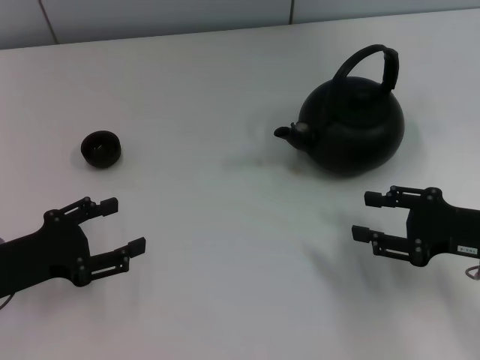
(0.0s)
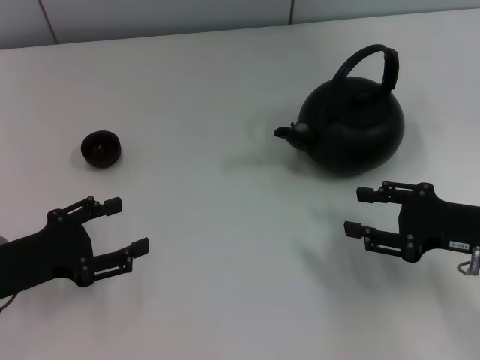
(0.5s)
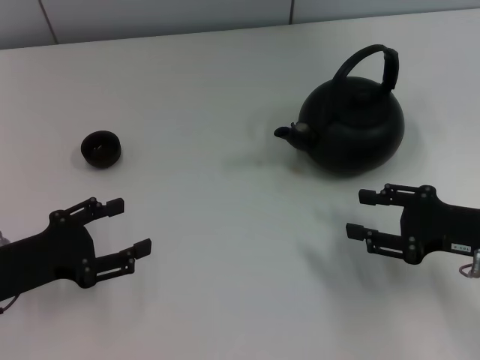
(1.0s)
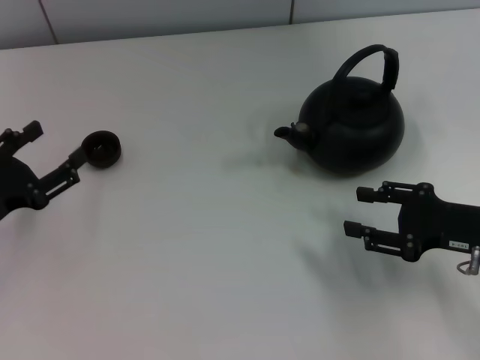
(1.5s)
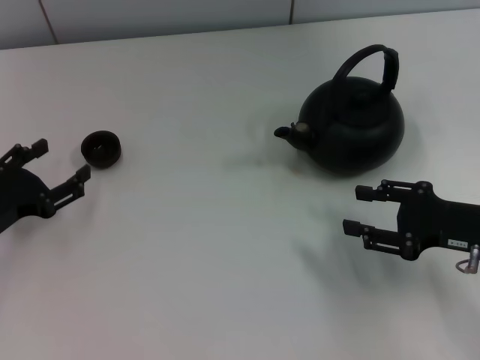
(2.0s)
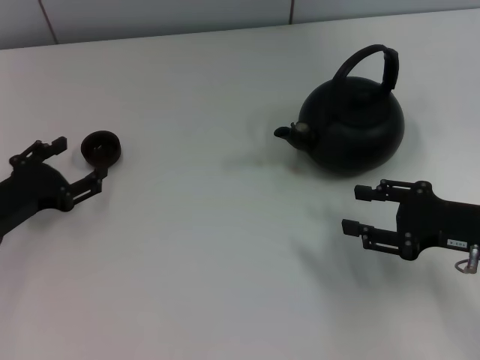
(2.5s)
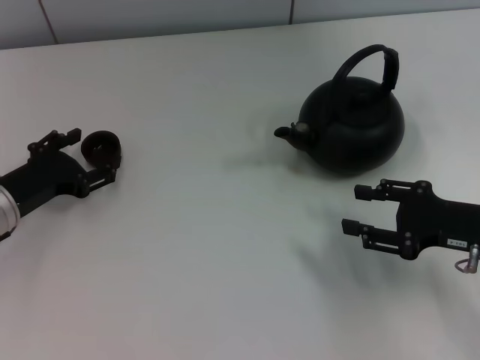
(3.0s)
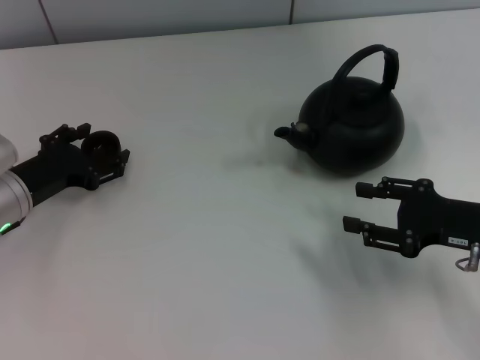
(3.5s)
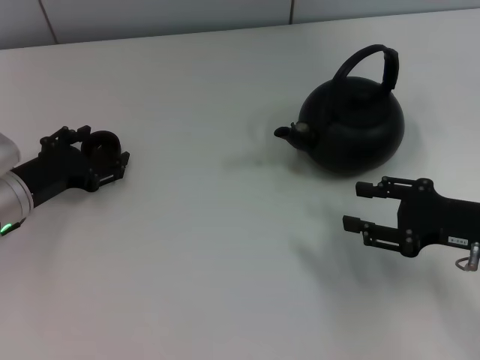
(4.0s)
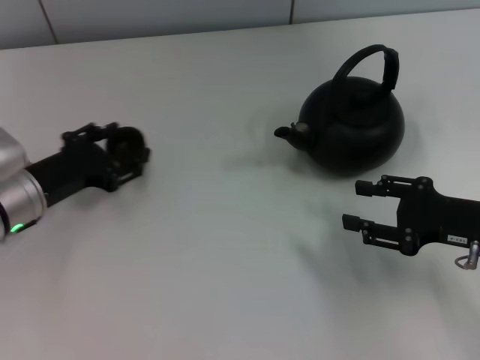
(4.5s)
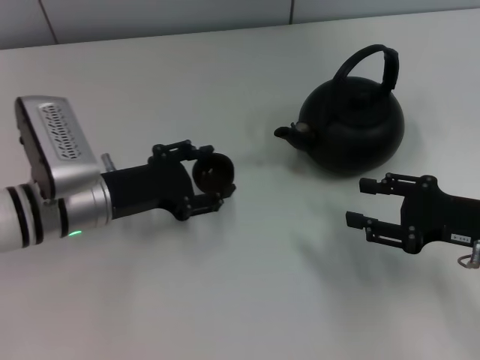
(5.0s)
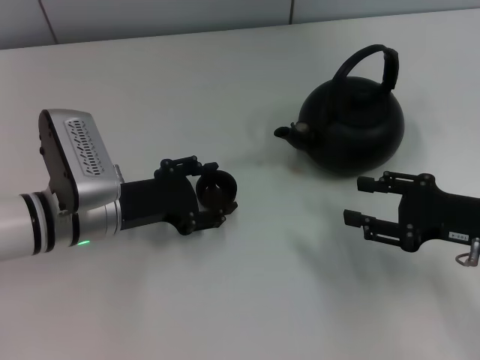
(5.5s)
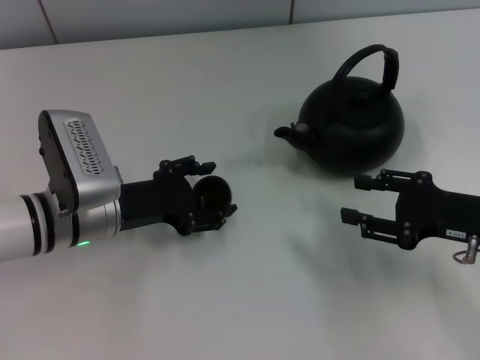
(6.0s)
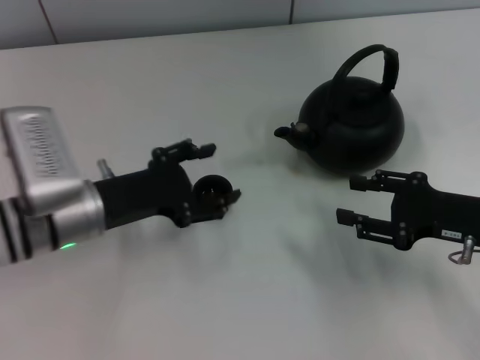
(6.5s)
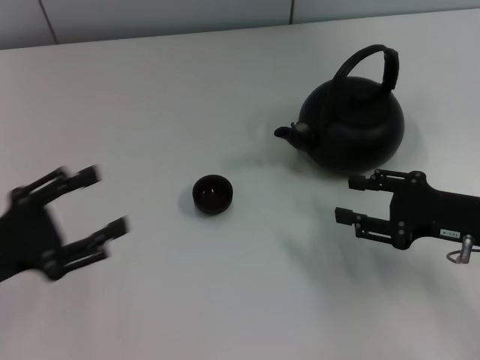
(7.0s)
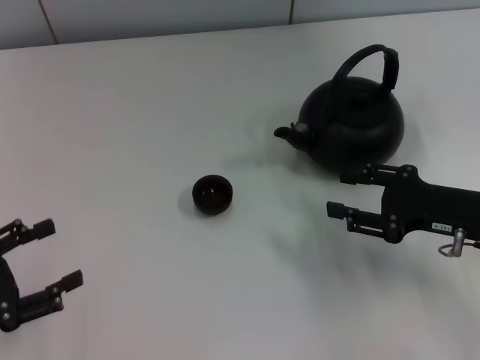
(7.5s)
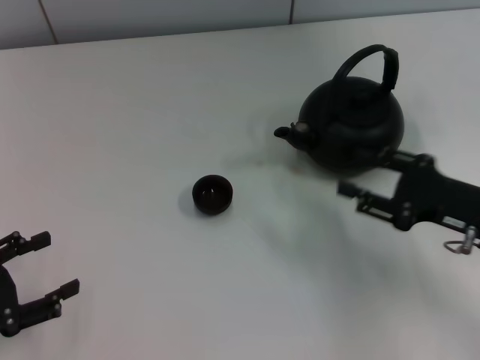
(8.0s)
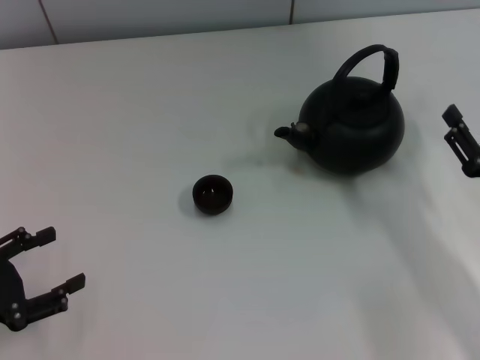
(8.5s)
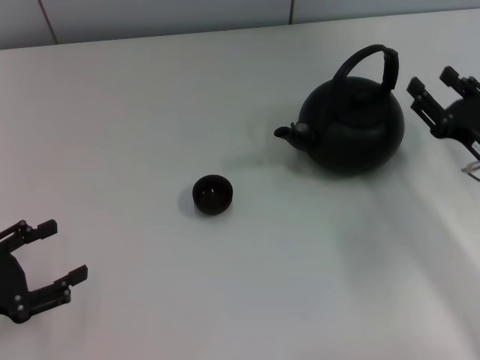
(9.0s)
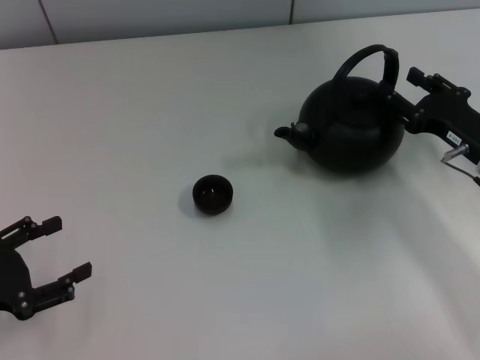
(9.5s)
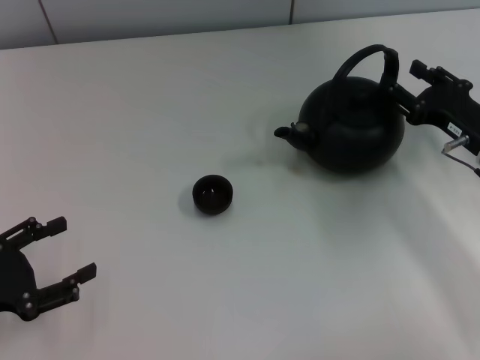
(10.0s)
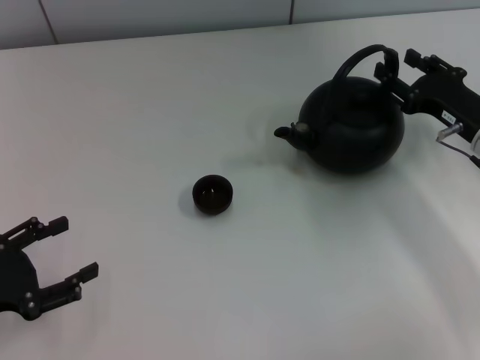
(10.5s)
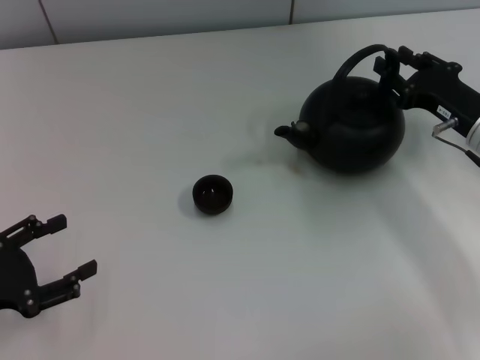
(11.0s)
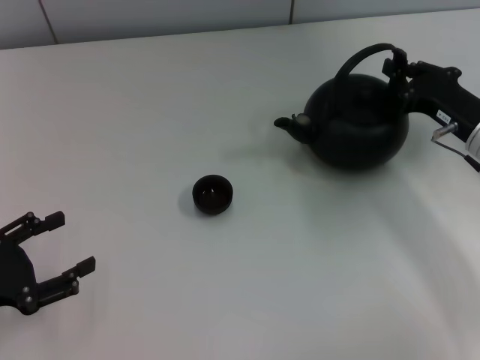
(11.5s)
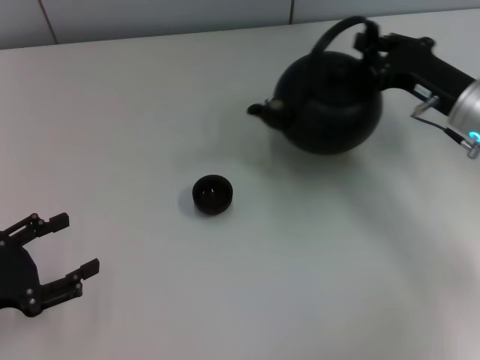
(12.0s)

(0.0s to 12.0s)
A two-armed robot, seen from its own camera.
Task of the whole recording: Grasp the handle of the teapot with one hand and pour tea into the teacup.
Step, 0.0s - 4.5s: Pick up the teacup with the left gripper.
Step, 5.0s - 7.0s: Place the teacup in the center of view with the left gripper.
Step, 7.5s - 12.0s: Pick up the teapot with the right gripper.
2.0s - 4.0s: The left gripper shifts approximately 5 cm forward, and closes up.
4.0s - 6.0s: The left gripper moves to the right, about 10 cm.
6.0s - 8.0s: The left gripper goes approximately 20 cm to the left and backward, and opens its fingers.
8.0s - 10.0s: The right gripper goes approximately 5 cm forward.
10.0s - 12.0s: The right gripper changes place by approximately 5 cm, and closes.

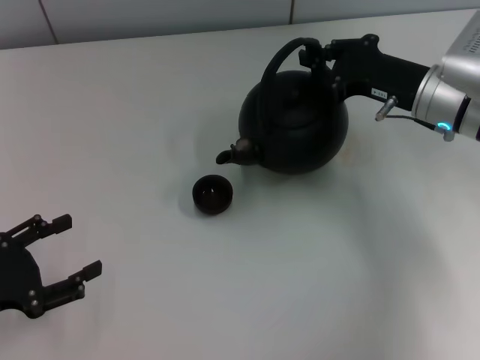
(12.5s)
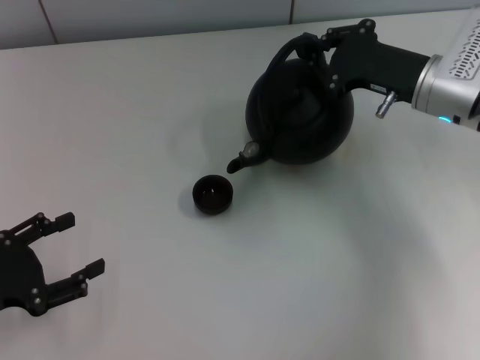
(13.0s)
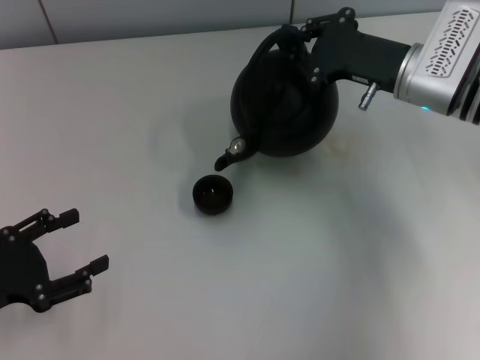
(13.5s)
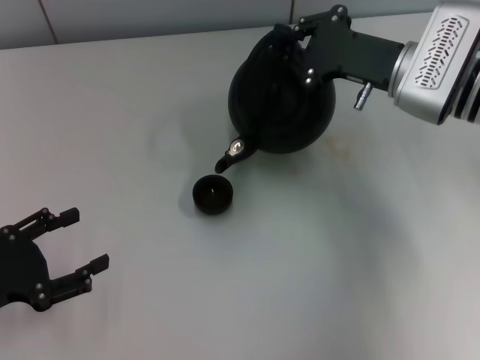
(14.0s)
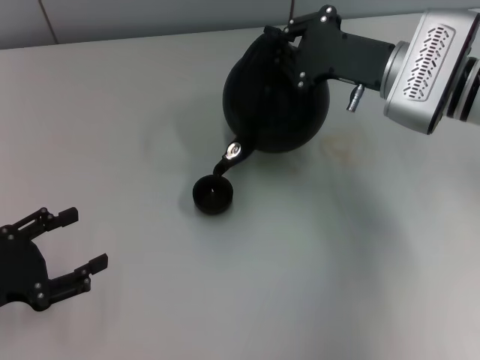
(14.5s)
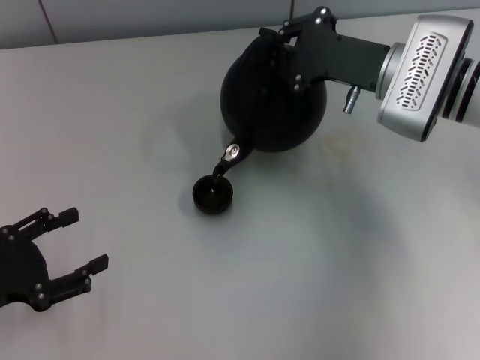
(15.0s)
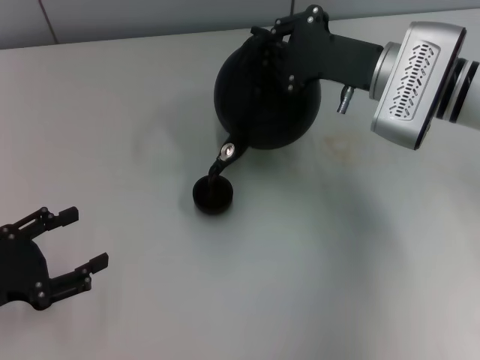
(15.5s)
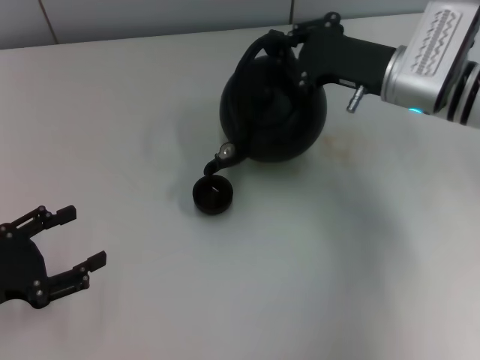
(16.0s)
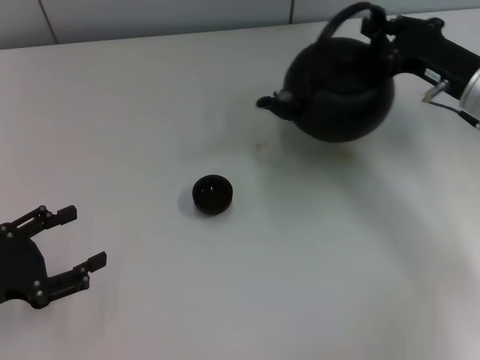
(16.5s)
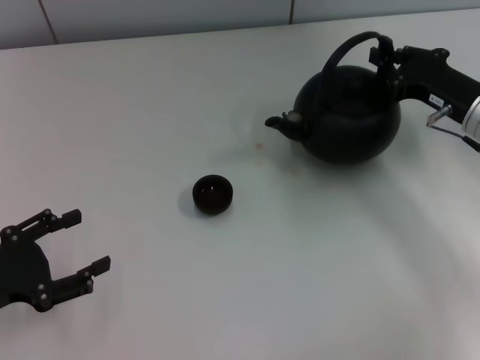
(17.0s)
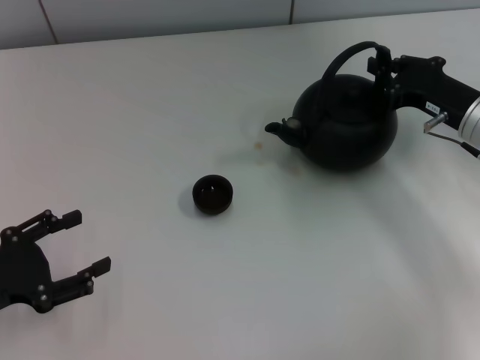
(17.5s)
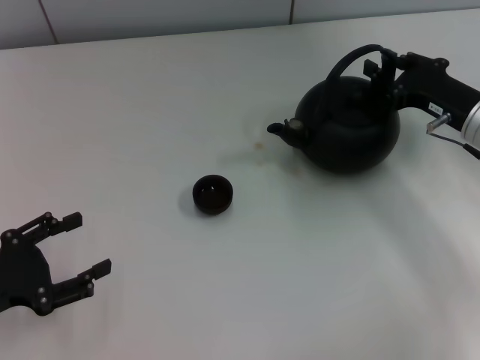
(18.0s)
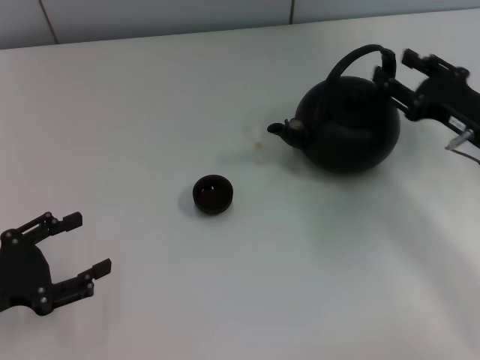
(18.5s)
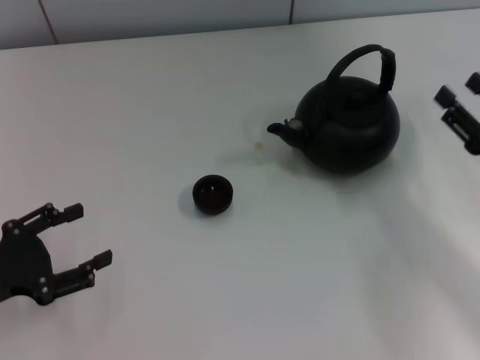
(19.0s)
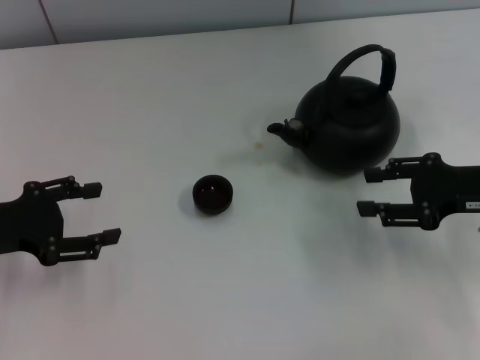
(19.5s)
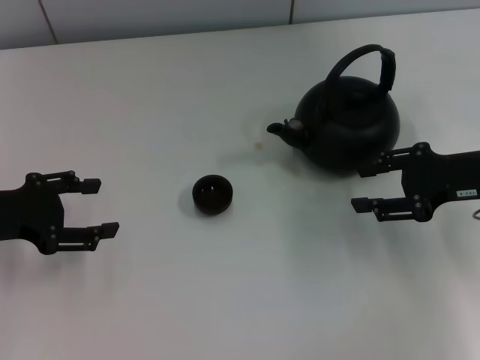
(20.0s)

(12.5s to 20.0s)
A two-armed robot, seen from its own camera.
Task of the whole recording: Grasp the handle of the teapot with one hand and pour tea into the teacup.
Step, 16.5s - 18.5s: Put down the teapot with the right gripper.
14.5s - 16.5s: The right gripper moves to the right, approximately 10 cm.
16.5s - 18.0s: The grippers make only small movements.
18.0s - 20.0s: The right gripper opens up. The left gripper moves forward, roughly 10 cm.

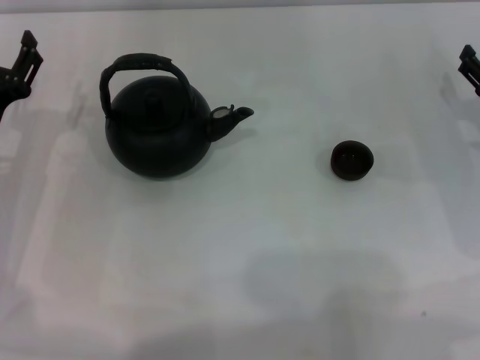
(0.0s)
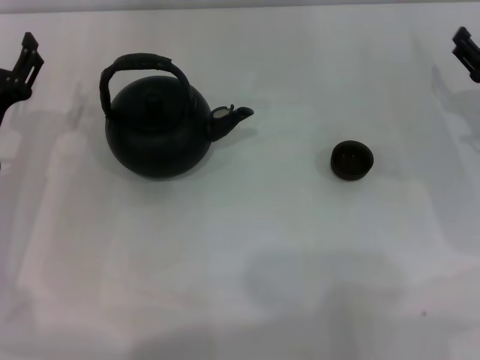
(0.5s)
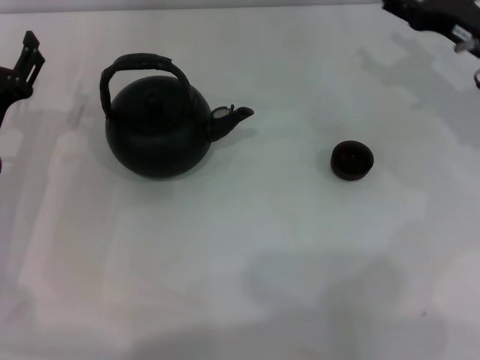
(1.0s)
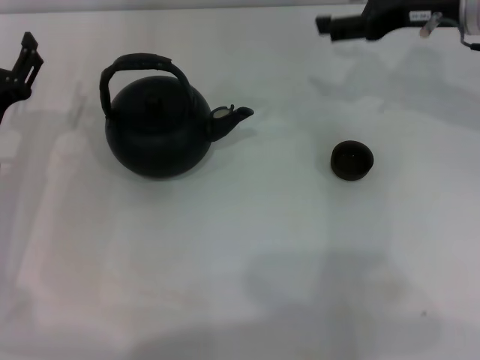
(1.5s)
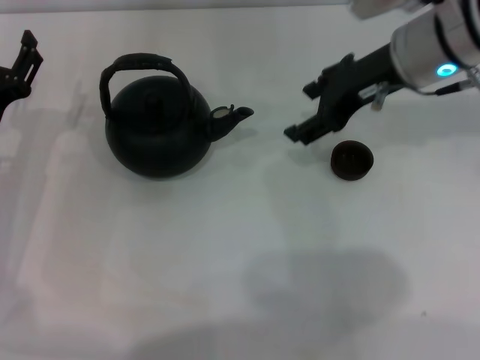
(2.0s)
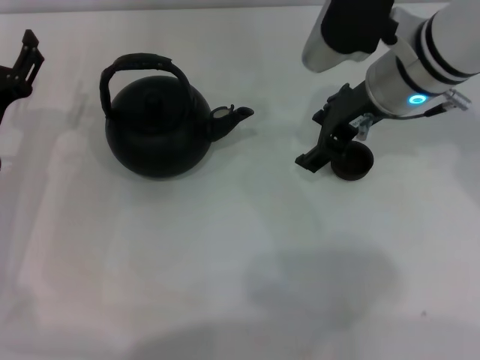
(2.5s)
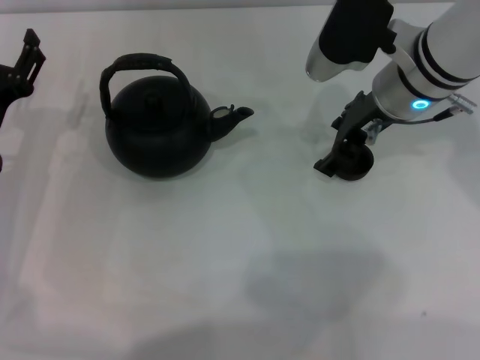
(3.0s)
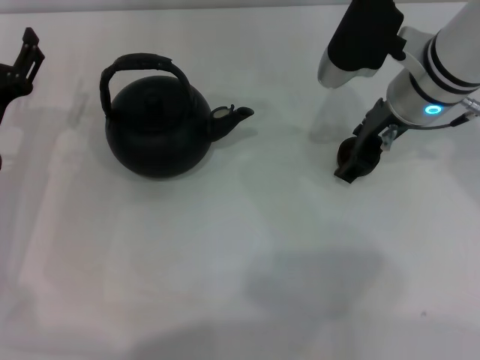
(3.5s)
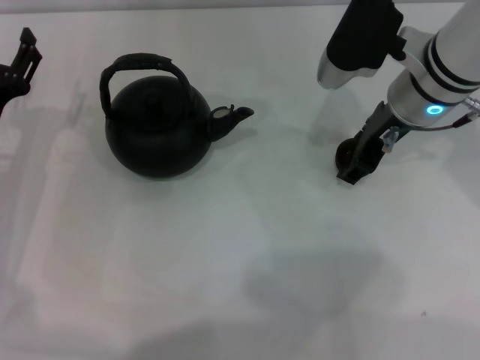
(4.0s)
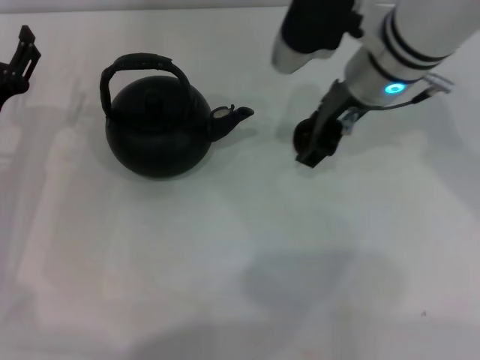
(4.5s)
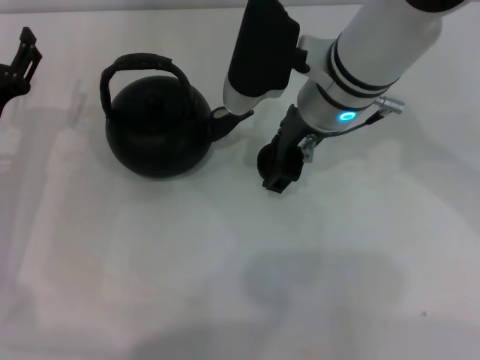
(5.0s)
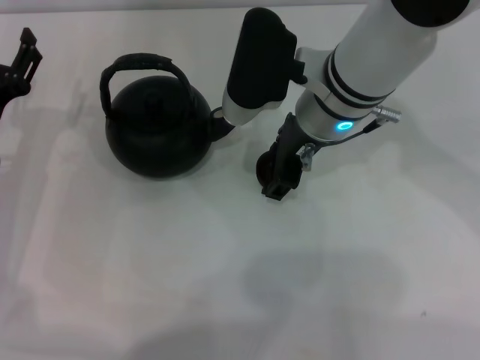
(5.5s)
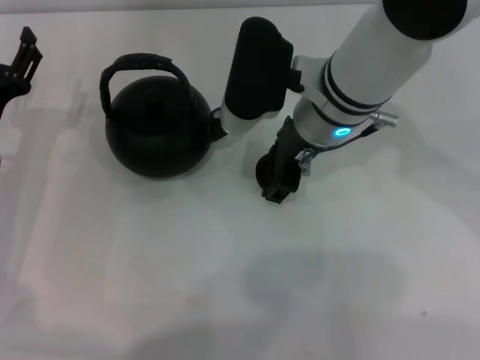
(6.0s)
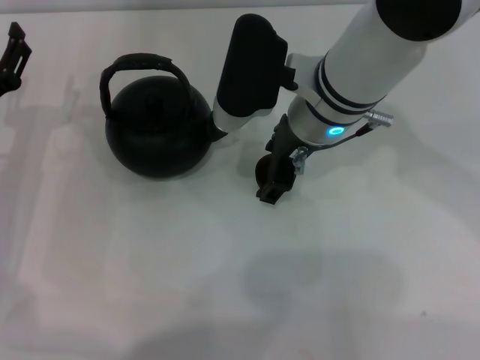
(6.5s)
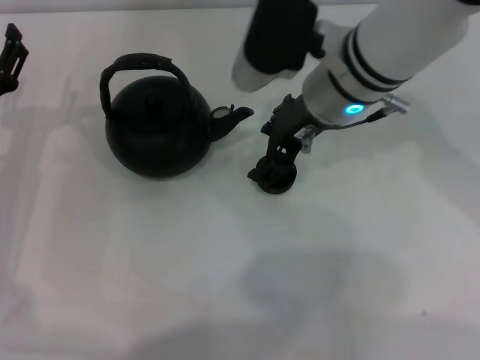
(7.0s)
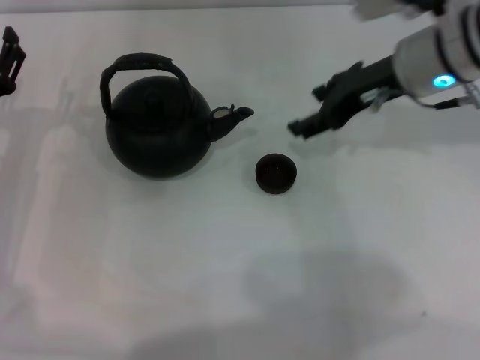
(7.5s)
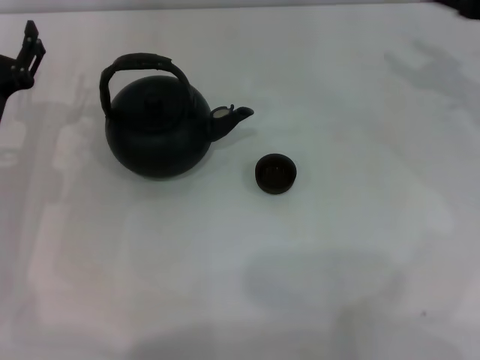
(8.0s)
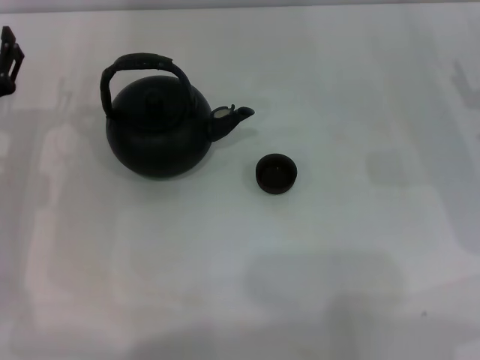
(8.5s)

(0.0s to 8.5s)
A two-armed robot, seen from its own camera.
Task of the whole recording: Grasp the handle of the teapot with one hand and pour tea into the teacup.
Step, 0.0s - 4.0s: Pick up the teacup with the right gripper.
Step, 4.5s - 7.0s: Place the teacup in the center of view with the right gripper.
0.0s - 2.0s: The right gripper moves to the left, upward and forward, about 25 cm, and closes.
2.0s - 4.0s: The right gripper closes.
4.0s - 6.5s: The right gripper heads to the left, covering approximately 10 cm, and opens.
6.5s - 8.5s: The right gripper moves to the right, some 25 cm.
